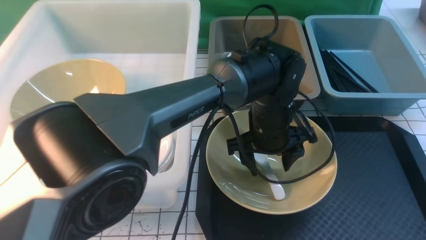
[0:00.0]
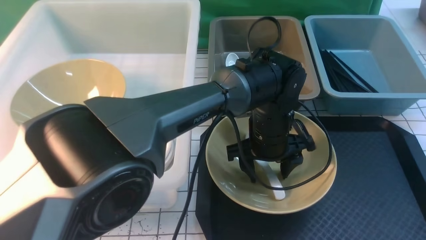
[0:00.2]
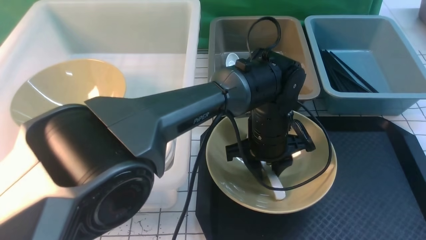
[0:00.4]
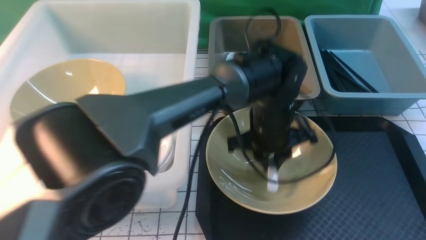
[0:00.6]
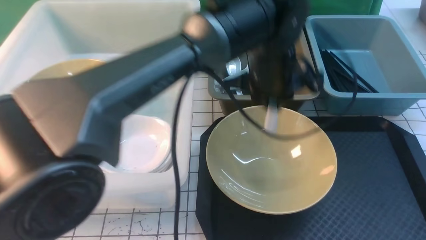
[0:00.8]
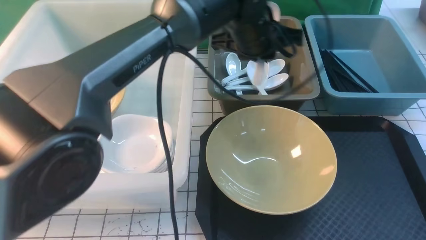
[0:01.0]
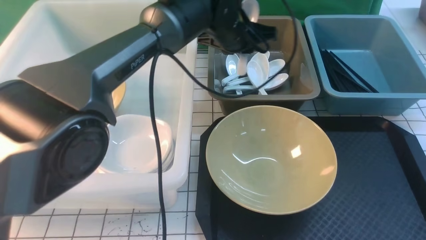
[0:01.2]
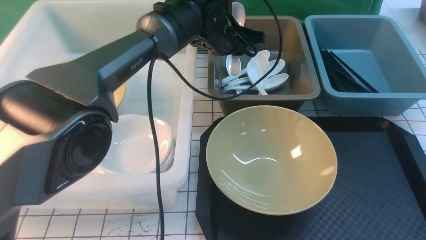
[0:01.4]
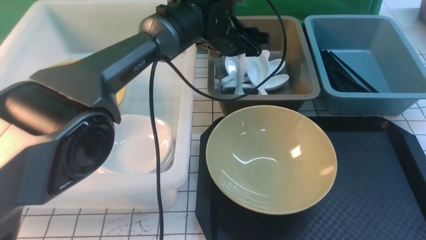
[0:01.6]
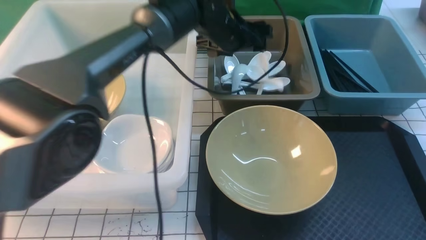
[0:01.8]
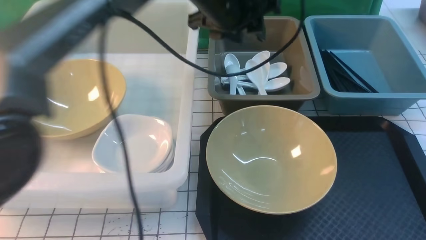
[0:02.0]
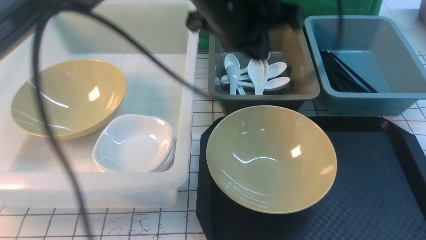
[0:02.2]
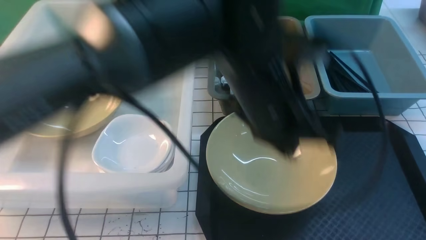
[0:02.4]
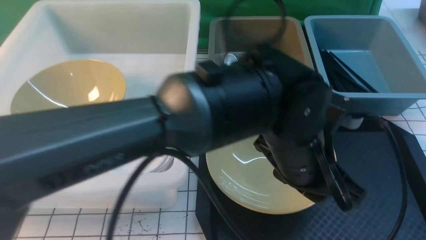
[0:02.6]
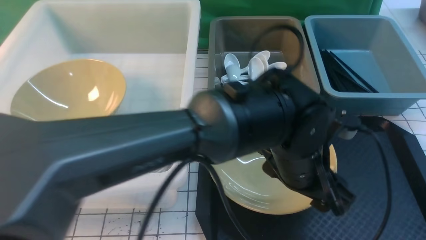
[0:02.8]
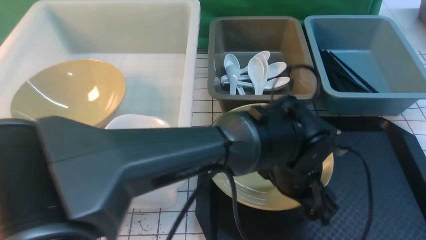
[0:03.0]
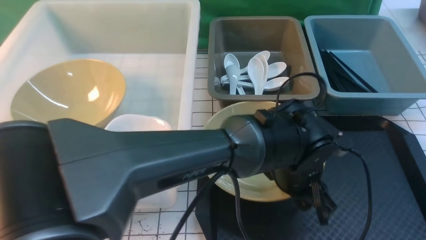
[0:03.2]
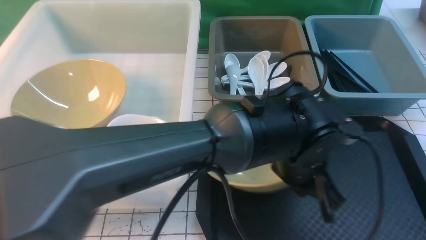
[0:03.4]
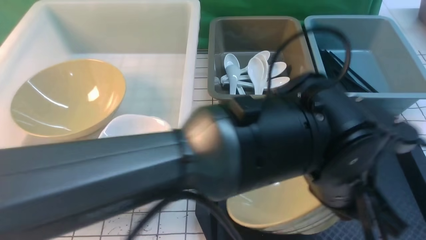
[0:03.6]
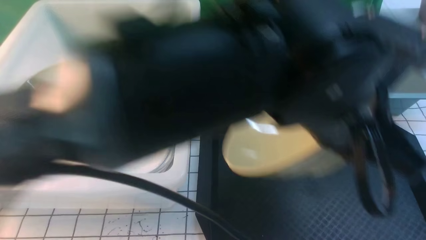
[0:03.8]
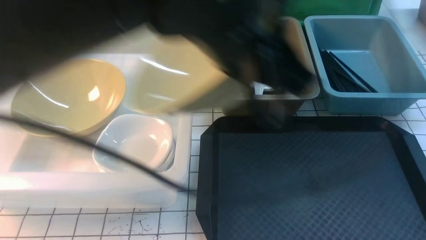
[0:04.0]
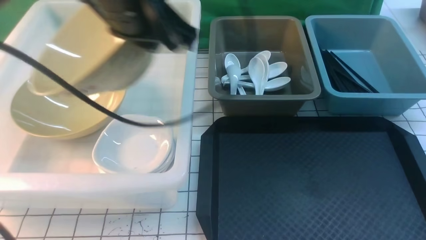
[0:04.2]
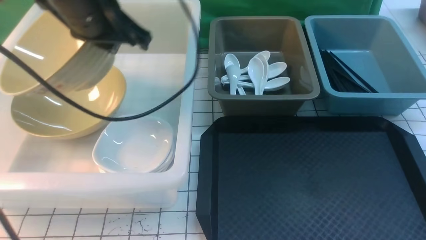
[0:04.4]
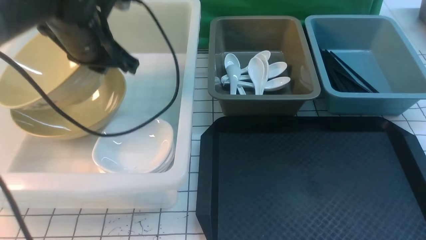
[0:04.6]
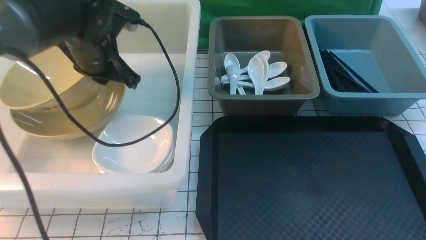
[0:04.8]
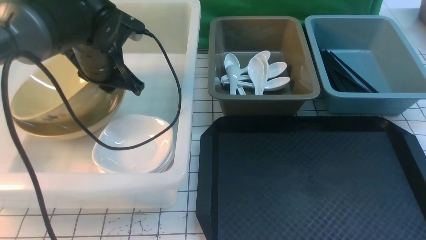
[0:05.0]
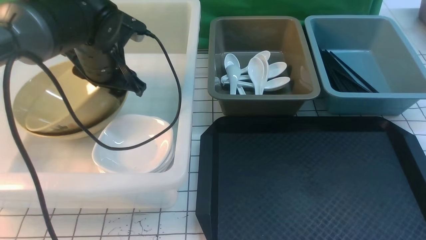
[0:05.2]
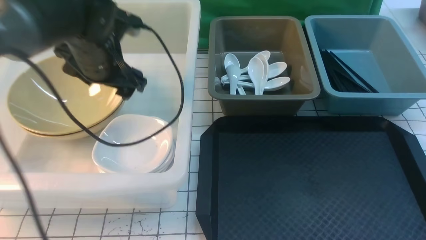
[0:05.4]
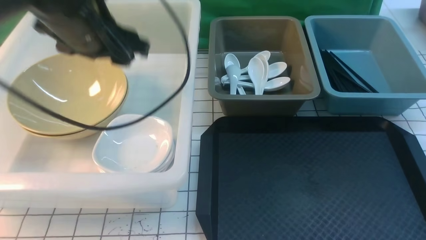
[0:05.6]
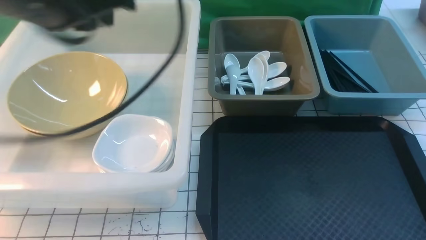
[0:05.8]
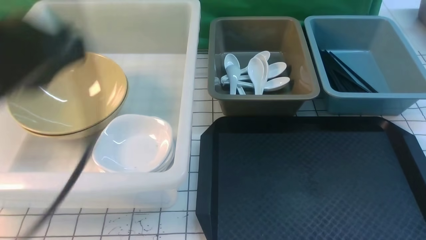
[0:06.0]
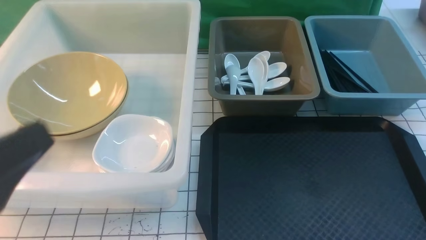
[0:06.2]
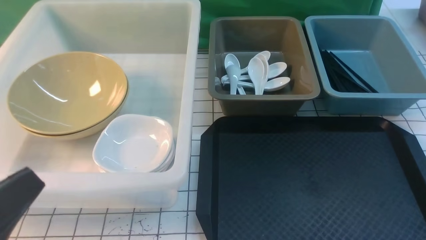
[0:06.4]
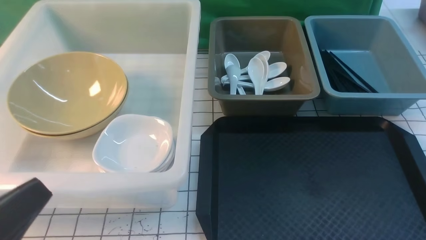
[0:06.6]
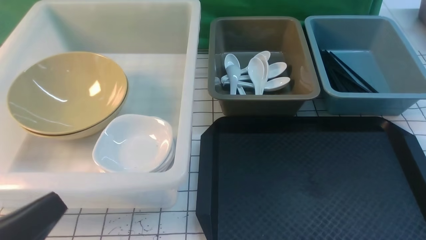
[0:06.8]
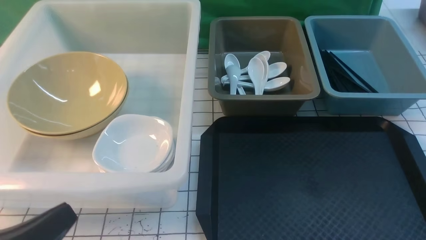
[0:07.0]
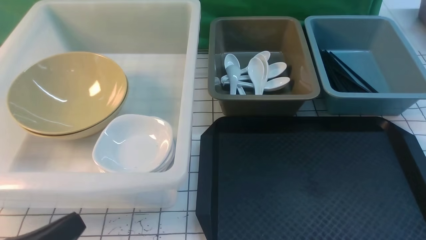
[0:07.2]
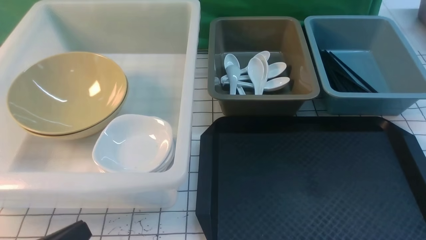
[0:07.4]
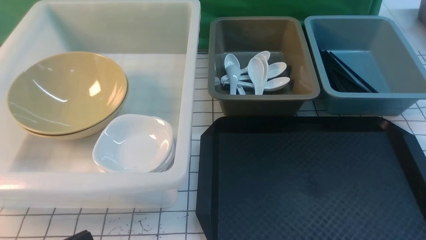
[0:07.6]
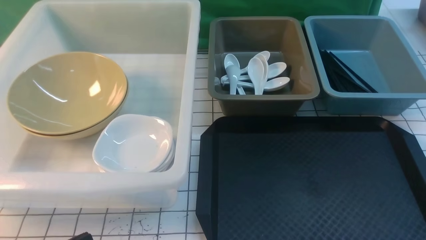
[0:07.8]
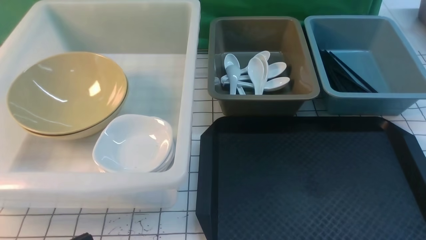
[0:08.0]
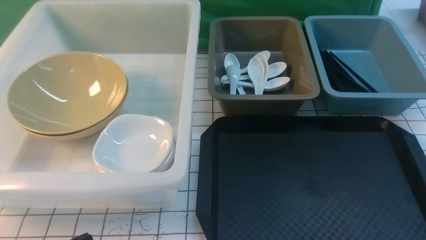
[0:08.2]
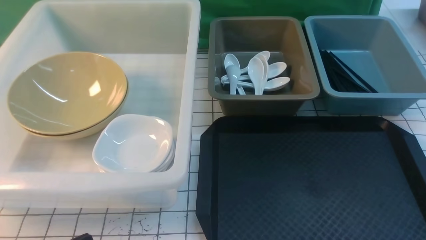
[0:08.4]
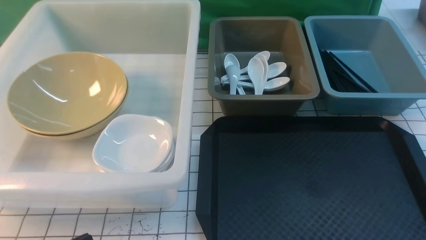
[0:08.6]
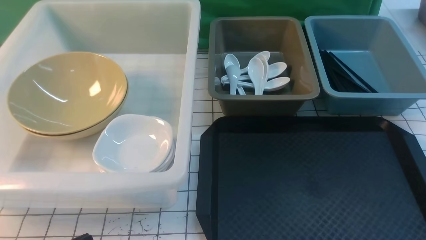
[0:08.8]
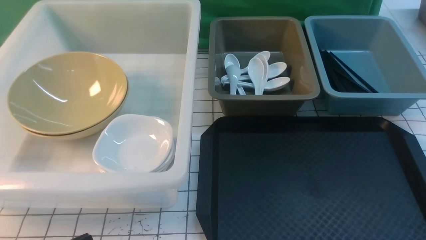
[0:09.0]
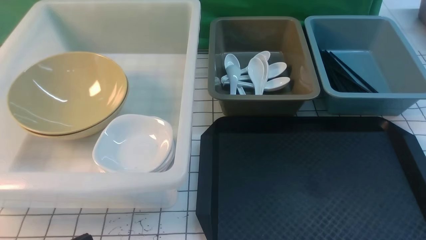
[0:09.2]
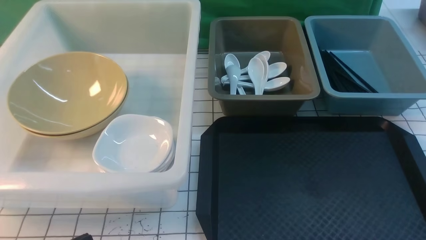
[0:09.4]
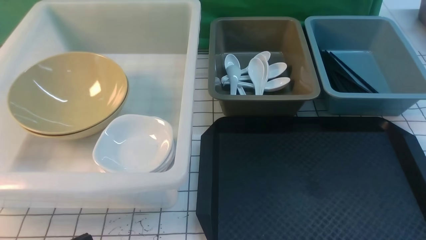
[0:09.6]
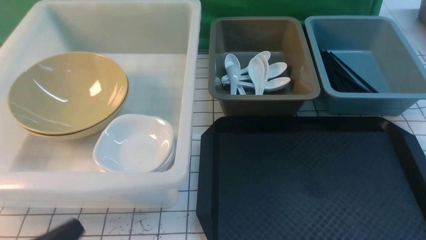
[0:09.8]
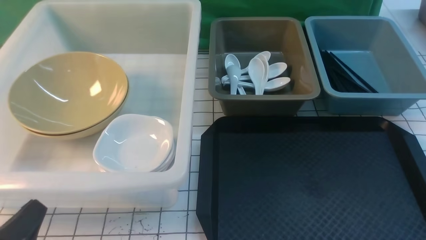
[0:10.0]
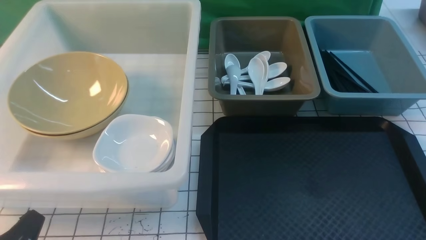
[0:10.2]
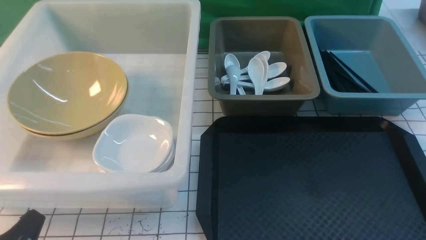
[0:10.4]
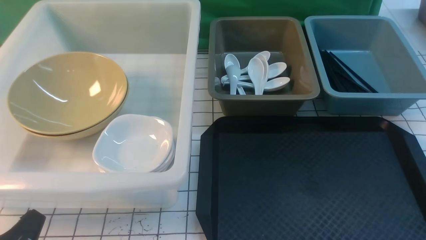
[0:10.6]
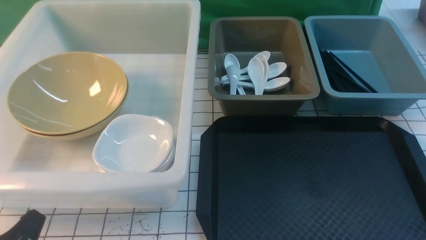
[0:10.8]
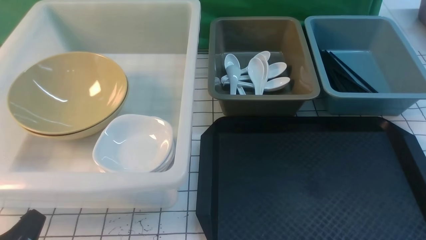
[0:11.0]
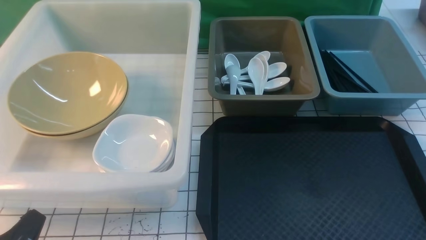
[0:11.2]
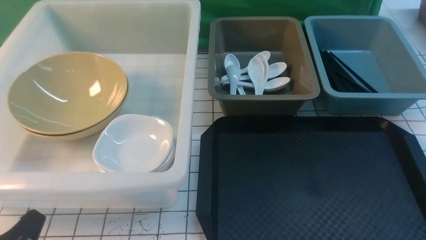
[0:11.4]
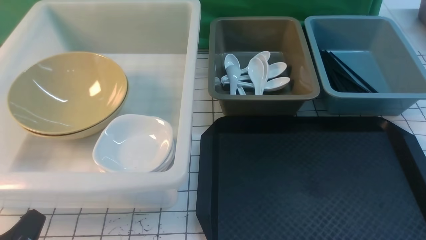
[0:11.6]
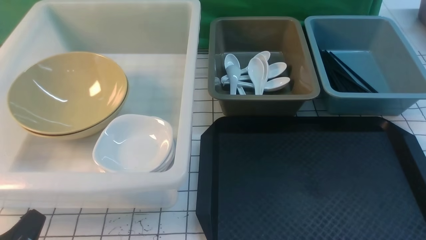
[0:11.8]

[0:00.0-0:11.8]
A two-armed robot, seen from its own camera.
Task of the whole recording: on white black table put chopsticks spoon bowls plates into blue grey white boxes.
Step, 0:00.8 to 0:02.0: use the left arm to put the soup spoon into the small storage box in the middle.
Step, 0:02.2 to 0:03.8: use the left arm to grab the yellow noodle bowl on the left.
Step, 0:04.0 to 0:05.6: use the left arm to put the noodle bowl into the large storage box on the left.
0:00.0 to 0:01.4: The left gripper heads forward, to the left and upward, covering roughly 20 cm, and closes.
0:01.4 to 0:03.0: The left gripper goes roughly 25 cm backward and to the right, and opens its fingers.
0:03.0 to 0:04.4: The left gripper shifts about 30 cm to the left and upward, and closes up. The right gripper is displaced to the left by about 5 cm.
0:04.4 to 0:06.0: The left gripper is displaced backward by about 20 cm, and opens and closes again.
0:06.0 to 0:07.4: The left gripper travels downward by roughly 20 cm.
0:10.4 to 0:11.8: Both grippers stay put.
